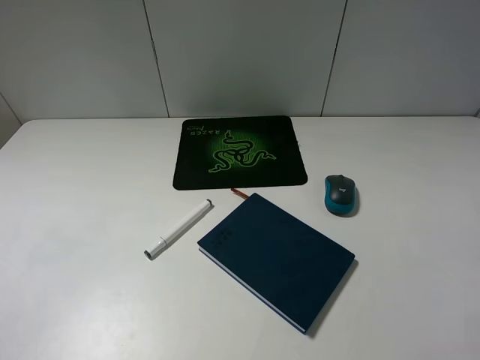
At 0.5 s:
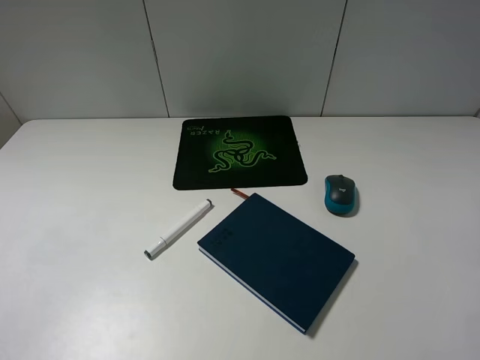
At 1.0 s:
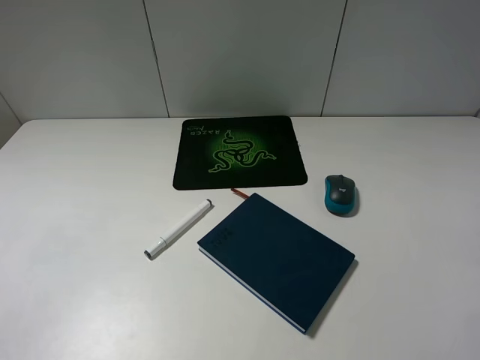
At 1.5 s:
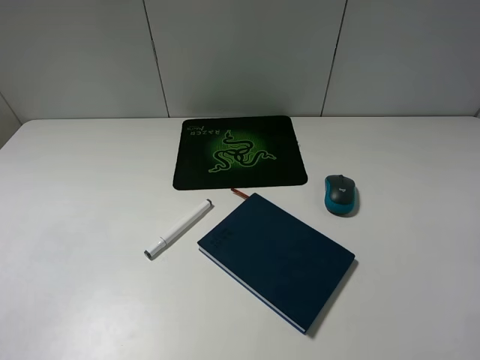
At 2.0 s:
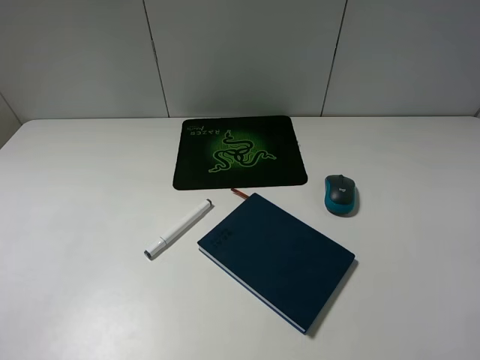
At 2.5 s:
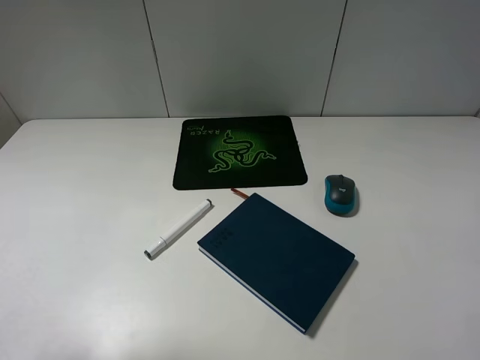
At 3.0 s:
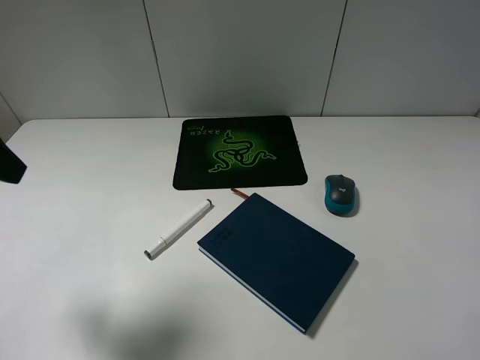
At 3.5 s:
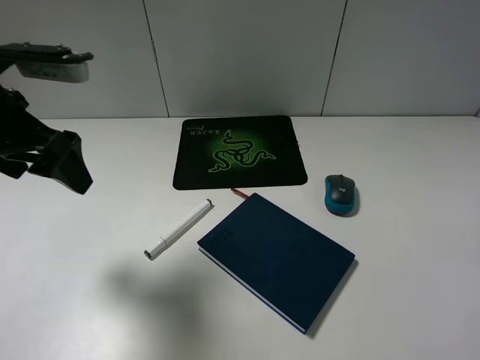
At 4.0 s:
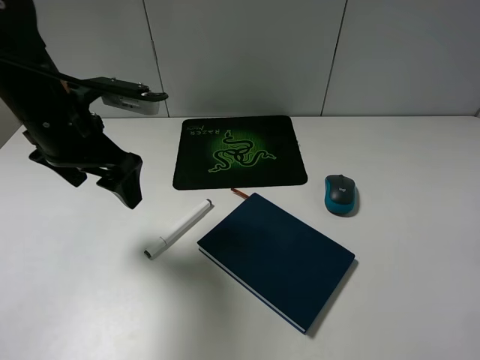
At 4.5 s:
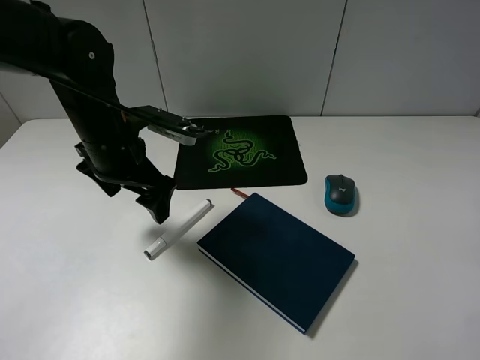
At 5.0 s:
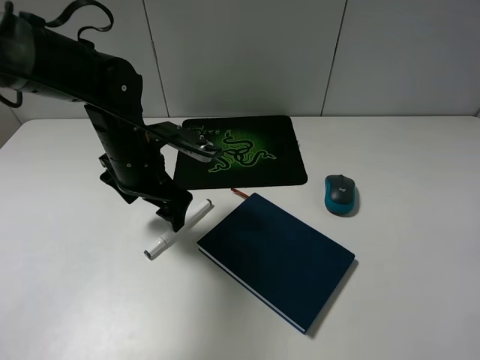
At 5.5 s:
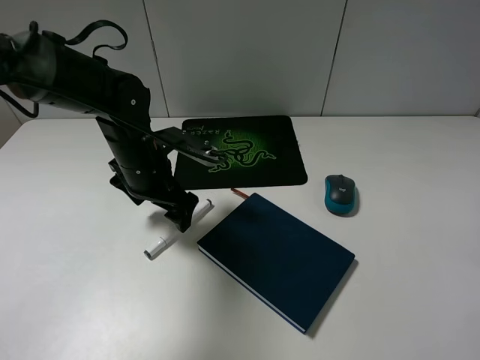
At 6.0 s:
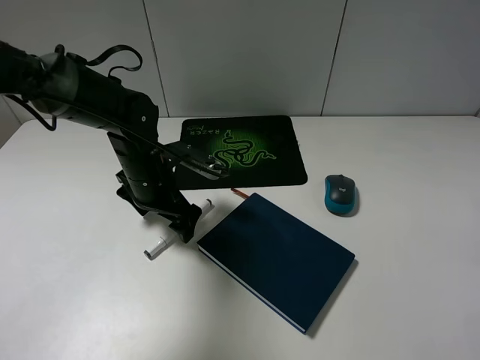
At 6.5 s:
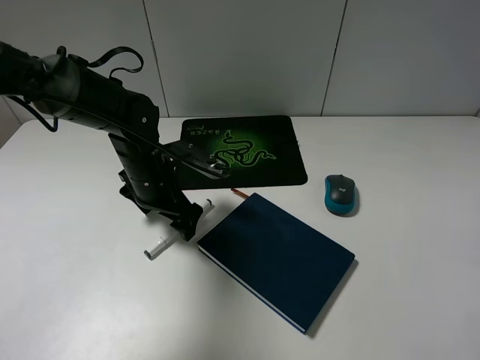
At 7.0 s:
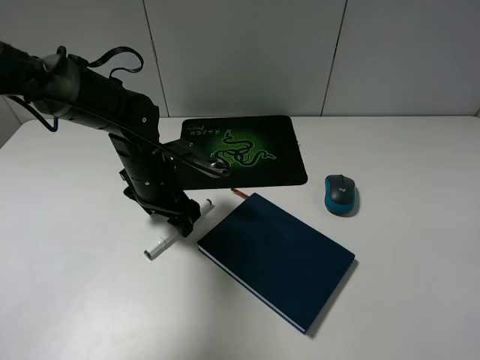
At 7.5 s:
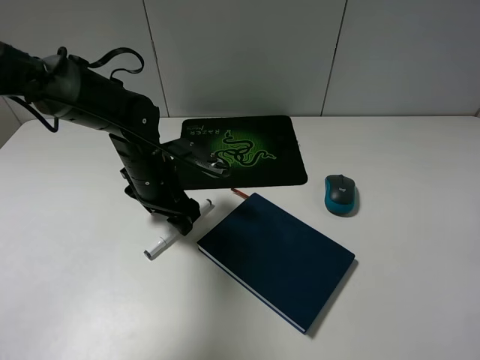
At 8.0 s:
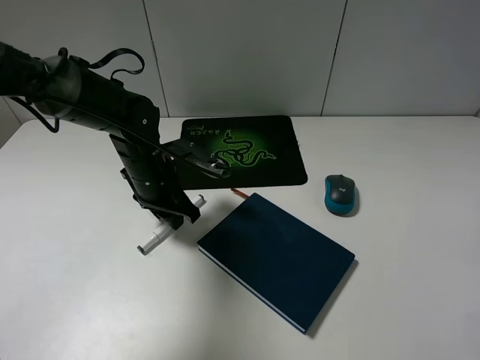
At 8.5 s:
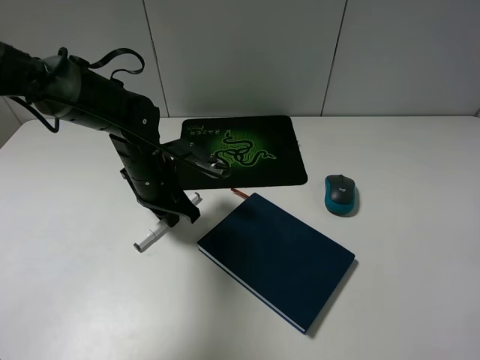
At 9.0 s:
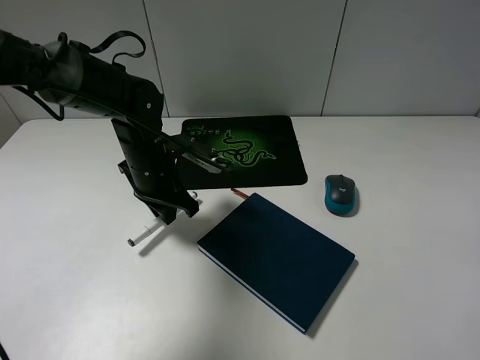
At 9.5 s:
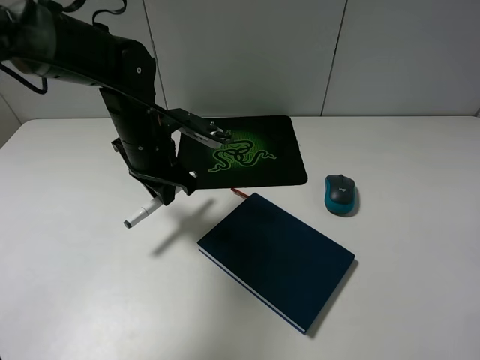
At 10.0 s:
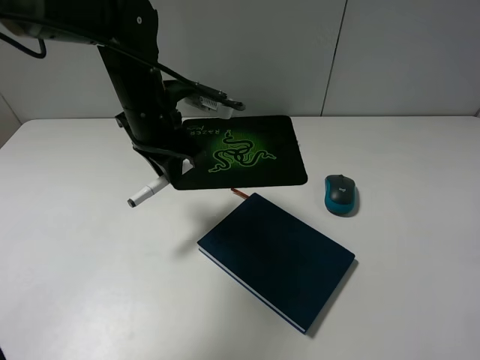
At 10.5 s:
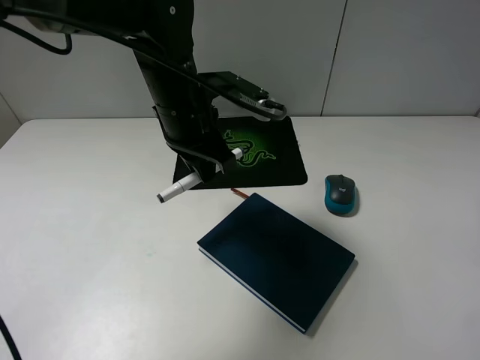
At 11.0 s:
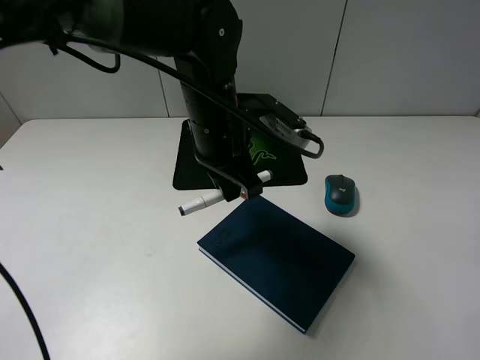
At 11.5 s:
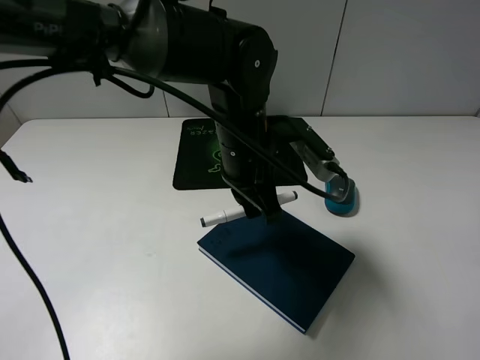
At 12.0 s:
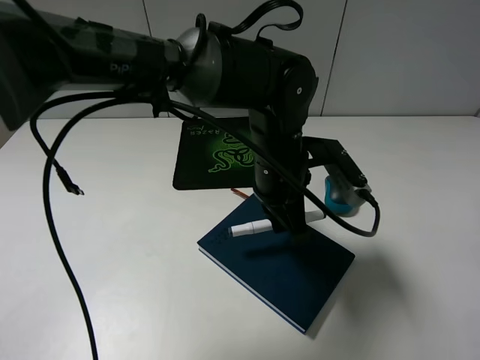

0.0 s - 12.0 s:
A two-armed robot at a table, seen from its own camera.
Step, 0.0 s - 8.0 s: Grasp the marker with the left gripper.
2.0 s - 4.0 s: The left gripper heads forward, to the right and downward, covering roughly 30 cm.
4.0 s - 6.0 s: The left gripper shifts about 15 cm downward and to the right.
6.0 s - 8.0 s: The left gripper closes its fingers.
8.0 s - 10.0 s: The left gripper is displaced upward by some 10 cm.
10.0 s - 12.0 s: The left gripper goes about 15 cm to the right.

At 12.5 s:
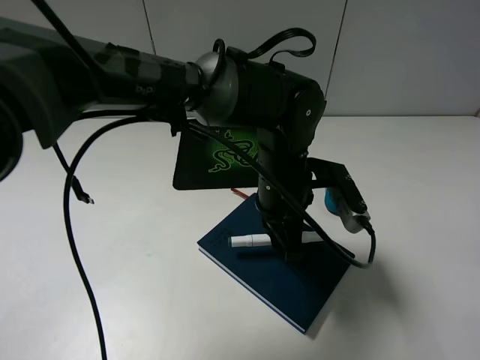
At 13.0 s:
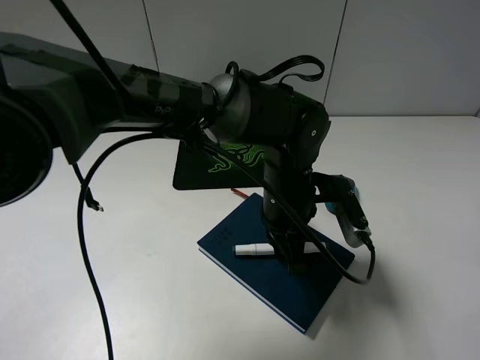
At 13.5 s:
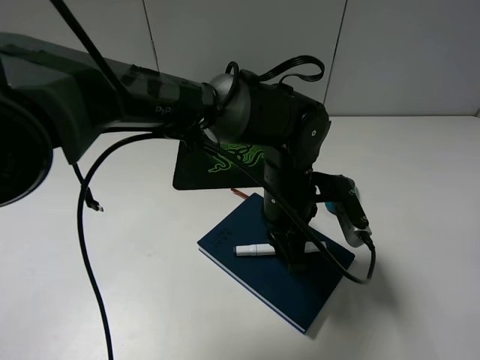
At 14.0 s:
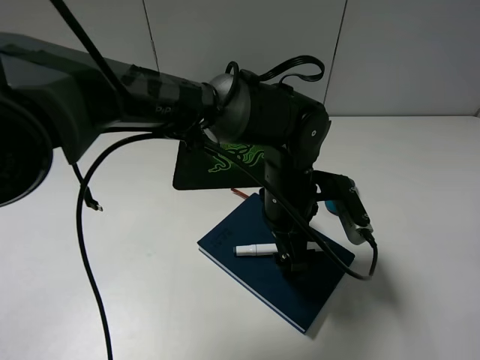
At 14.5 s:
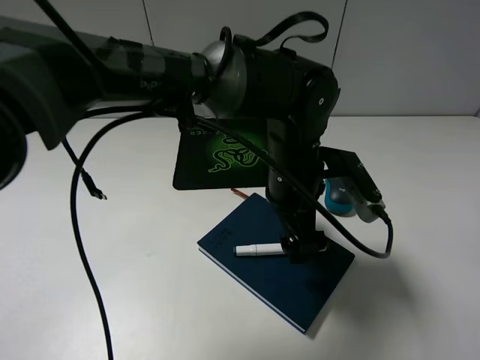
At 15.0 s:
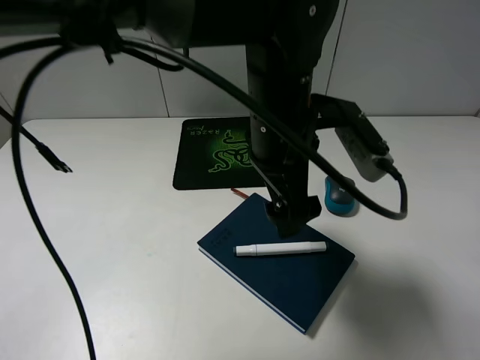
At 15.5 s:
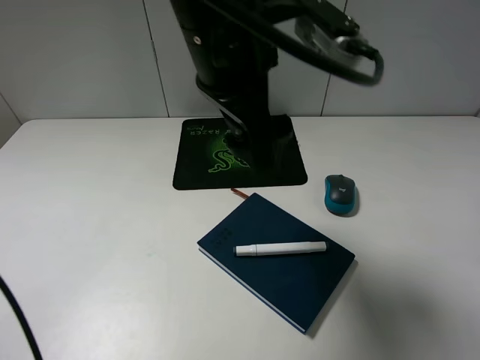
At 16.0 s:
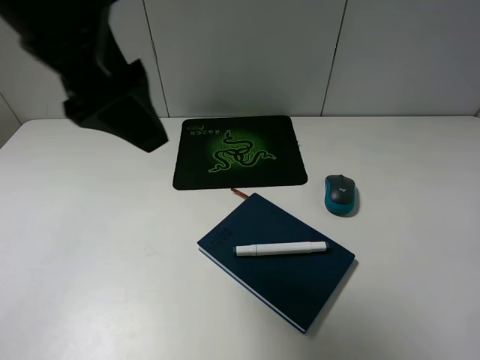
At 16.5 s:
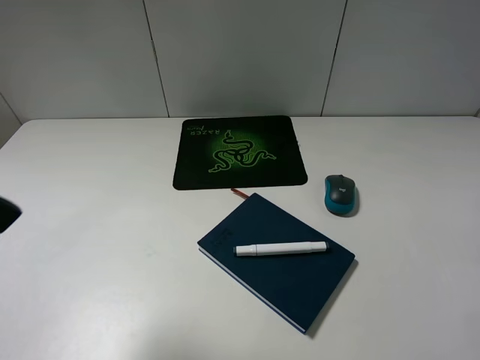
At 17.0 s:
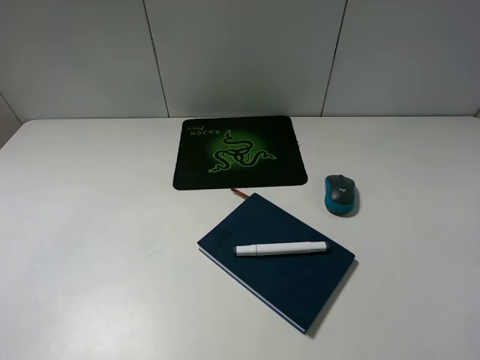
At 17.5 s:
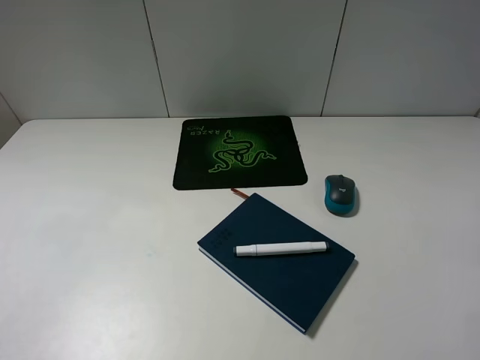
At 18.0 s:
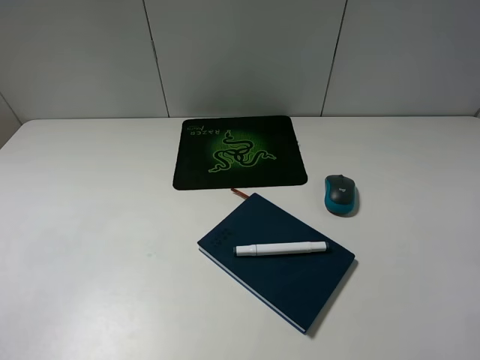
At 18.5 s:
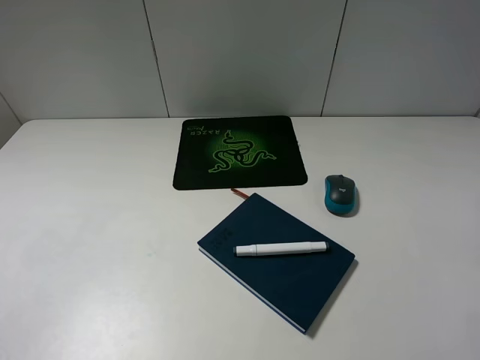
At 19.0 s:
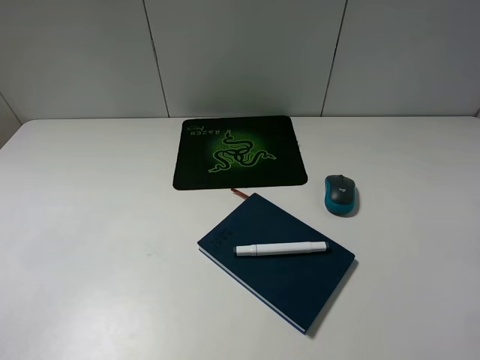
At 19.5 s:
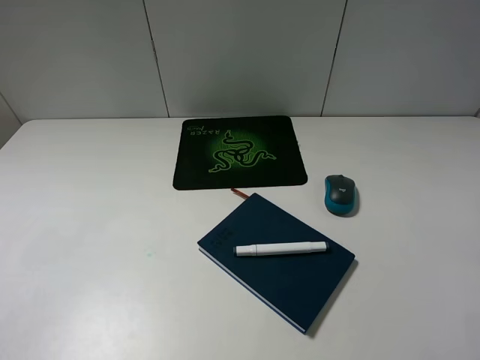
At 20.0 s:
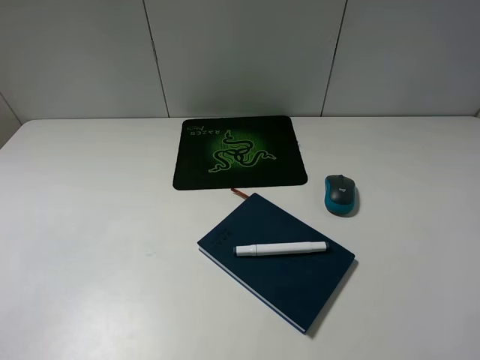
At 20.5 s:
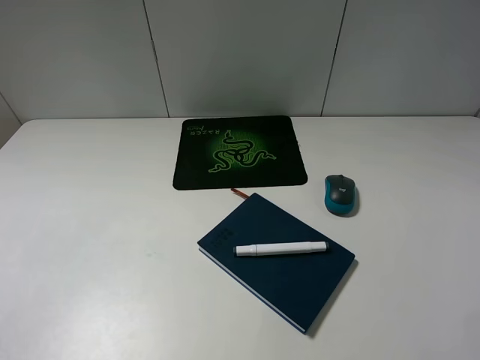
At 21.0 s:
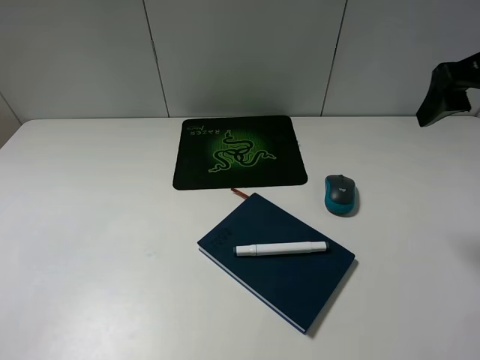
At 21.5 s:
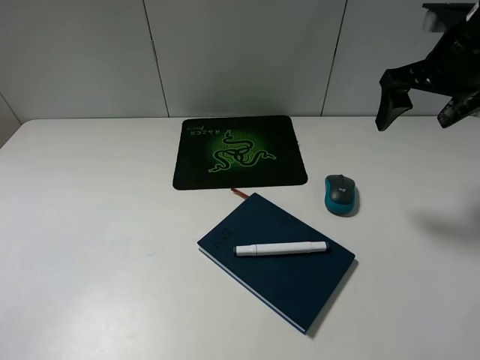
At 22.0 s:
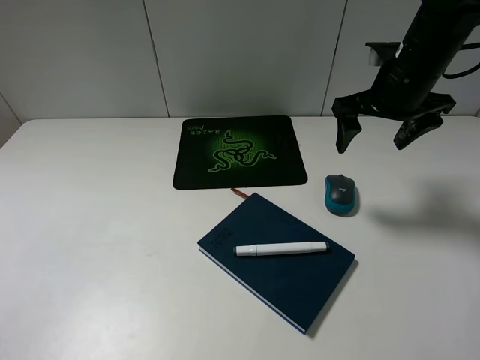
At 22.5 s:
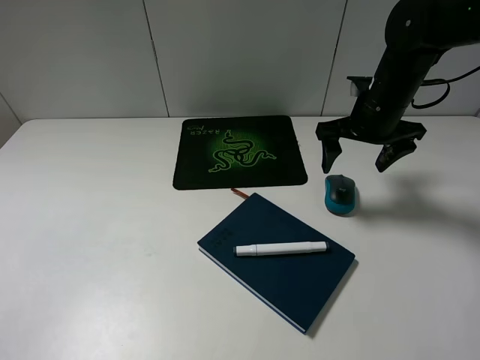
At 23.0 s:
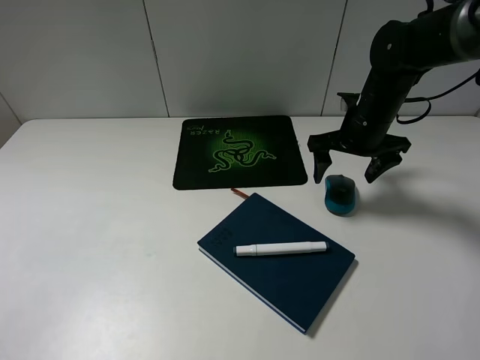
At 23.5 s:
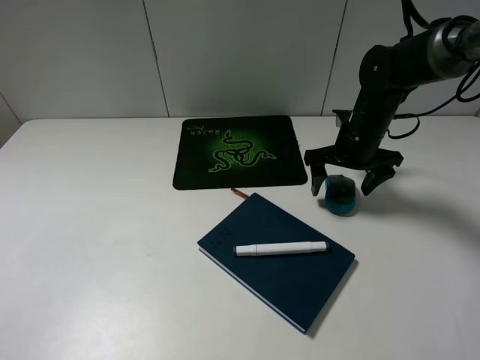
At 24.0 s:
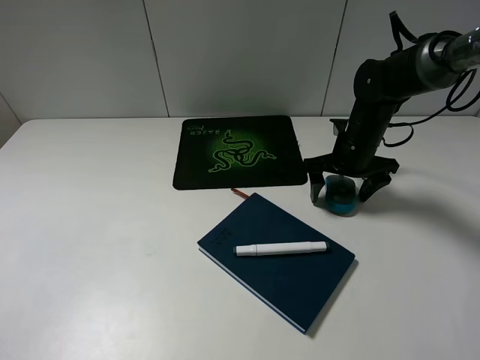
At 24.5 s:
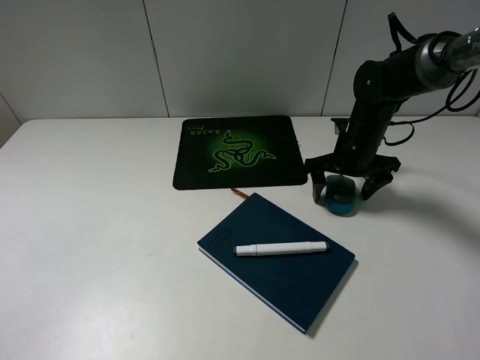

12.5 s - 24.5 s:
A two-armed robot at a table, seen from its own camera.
Step, 12.5 s - 14.5 s: Place the marker on the notebook with the left gripper.
12.5 s - 14.5 s: The left gripper opens up.
14.5 s - 16.5 s: The left gripper travels to the left, upward and backward by approximately 40 cm.
16.5 s - 18.5 s: The left gripper goes roughly 15 cm backward, downward and to the left.
20.5 s - 22.5 s: The right gripper heads forward, downward and to the left, covering about 25 cm.
22.5 s - 24.5 s: The right gripper heads downward, covering about 10 cm.

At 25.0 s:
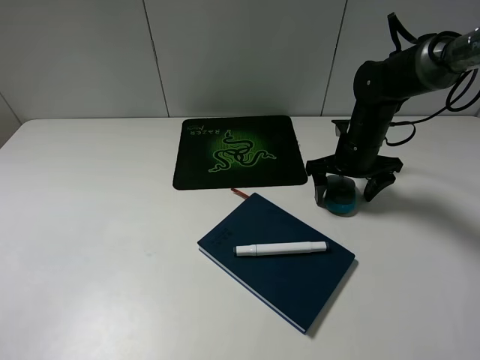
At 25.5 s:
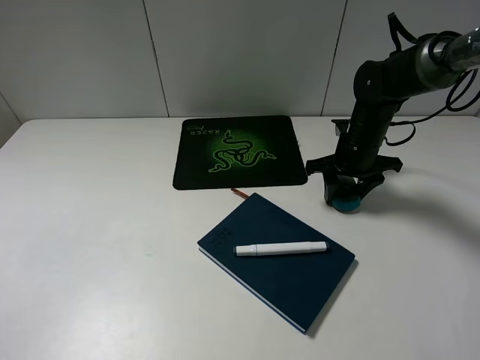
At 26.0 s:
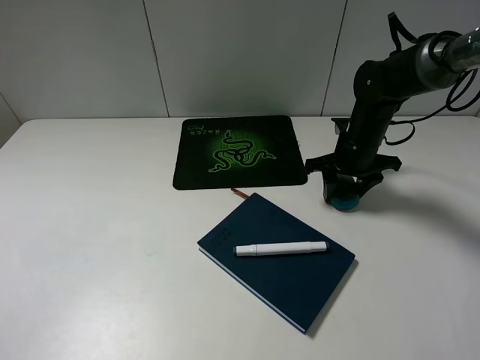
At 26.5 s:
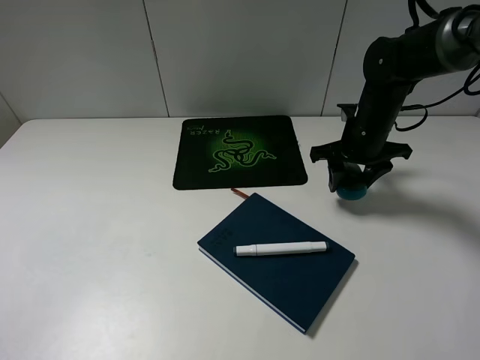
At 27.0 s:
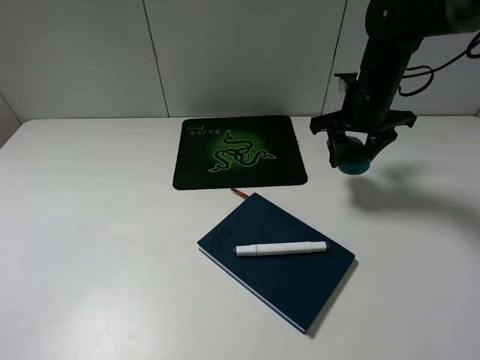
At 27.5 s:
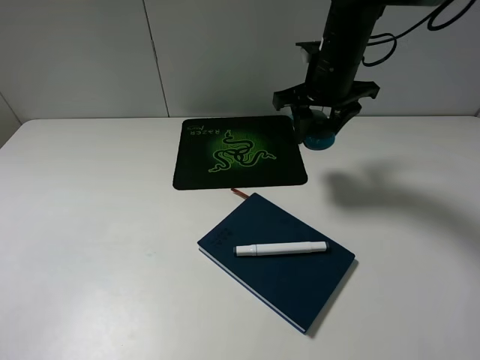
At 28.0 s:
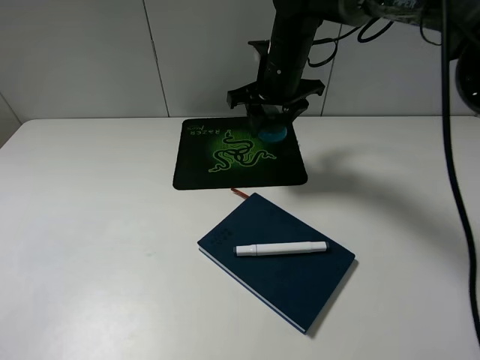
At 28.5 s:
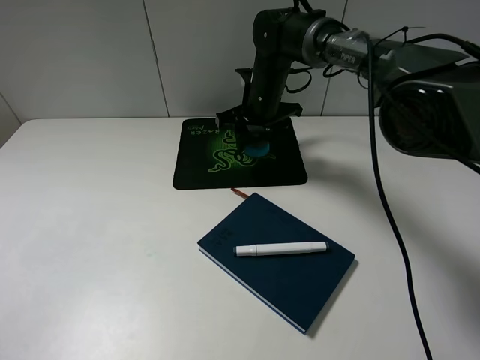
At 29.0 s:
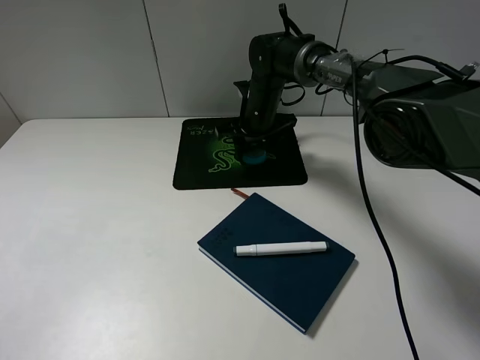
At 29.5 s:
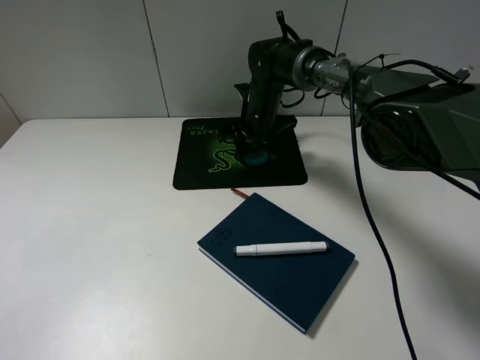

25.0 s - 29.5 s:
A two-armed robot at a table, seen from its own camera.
25.0 s - 27.0 s: The right gripper is displaced upward by some 10 cm, and closes up.
27.0 s - 29.5 s: The right gripper moves to the left, downward and forward, about 20 cm.
